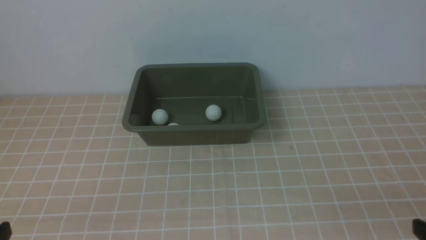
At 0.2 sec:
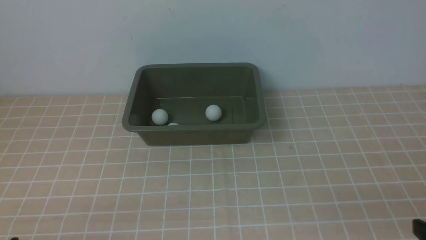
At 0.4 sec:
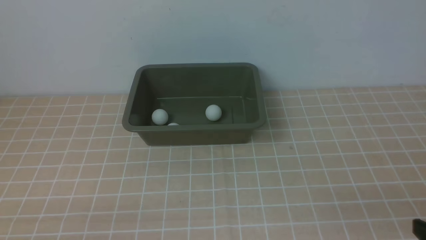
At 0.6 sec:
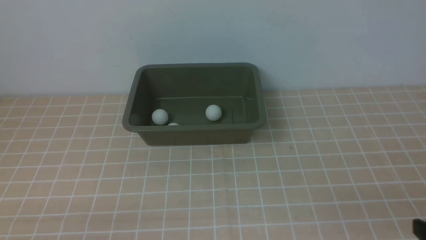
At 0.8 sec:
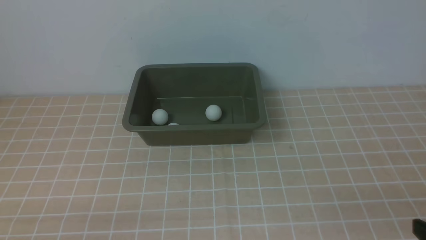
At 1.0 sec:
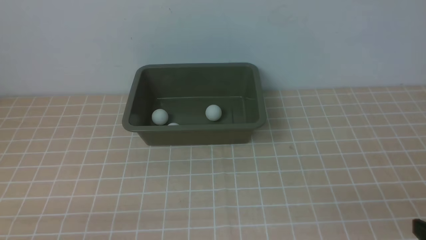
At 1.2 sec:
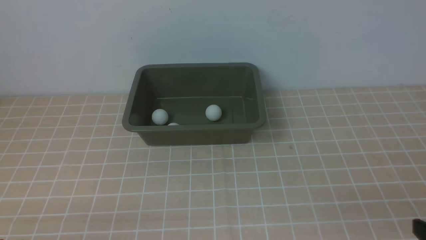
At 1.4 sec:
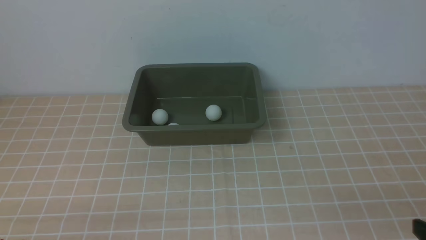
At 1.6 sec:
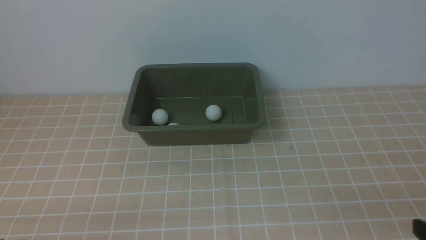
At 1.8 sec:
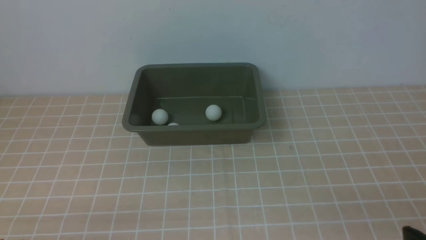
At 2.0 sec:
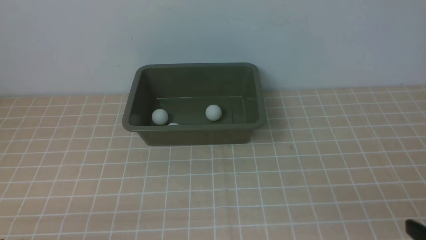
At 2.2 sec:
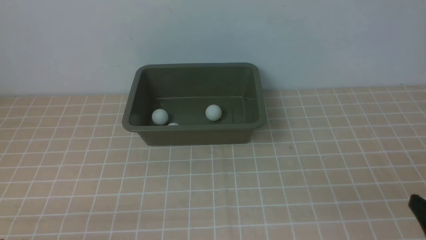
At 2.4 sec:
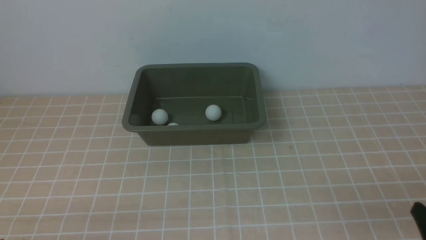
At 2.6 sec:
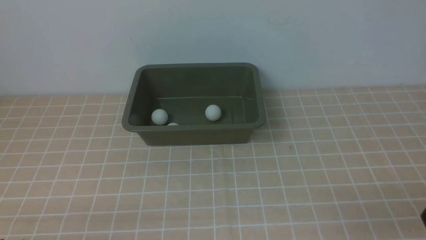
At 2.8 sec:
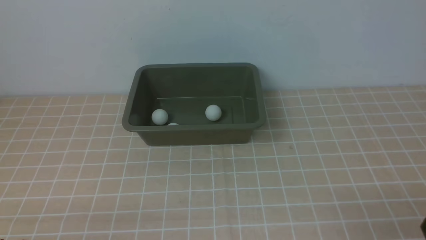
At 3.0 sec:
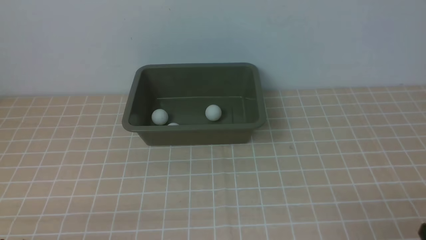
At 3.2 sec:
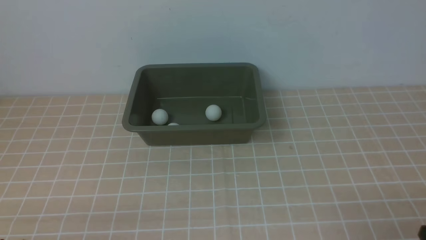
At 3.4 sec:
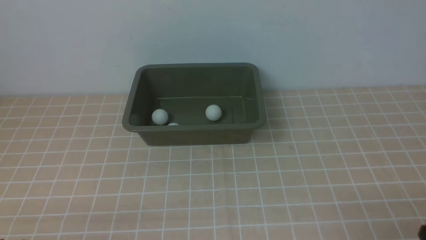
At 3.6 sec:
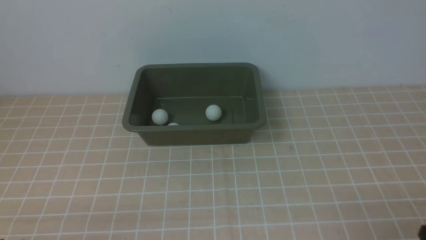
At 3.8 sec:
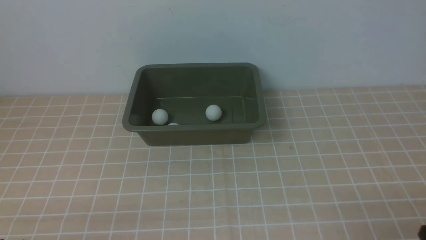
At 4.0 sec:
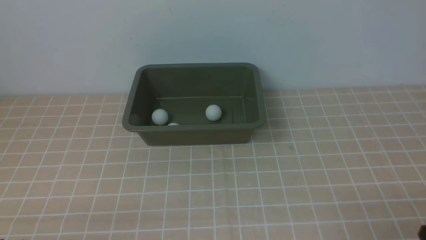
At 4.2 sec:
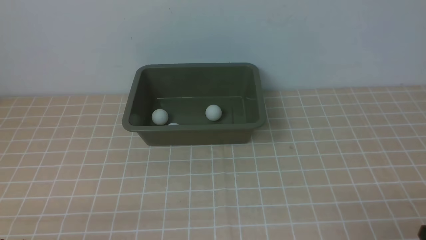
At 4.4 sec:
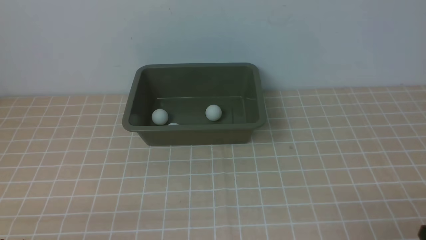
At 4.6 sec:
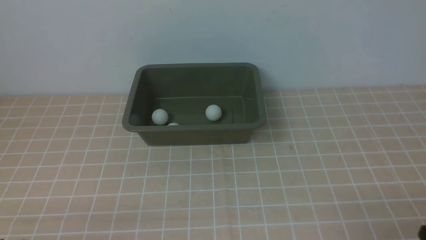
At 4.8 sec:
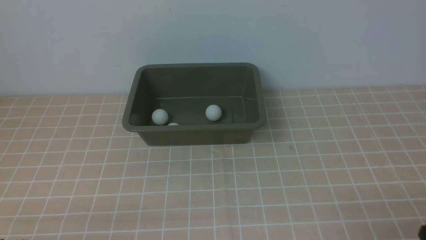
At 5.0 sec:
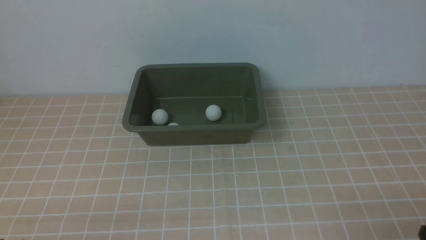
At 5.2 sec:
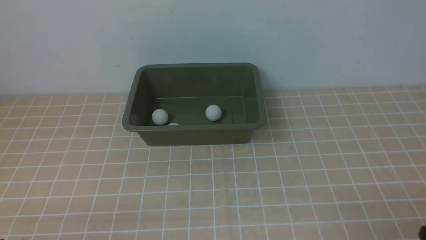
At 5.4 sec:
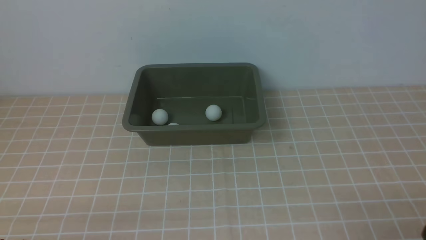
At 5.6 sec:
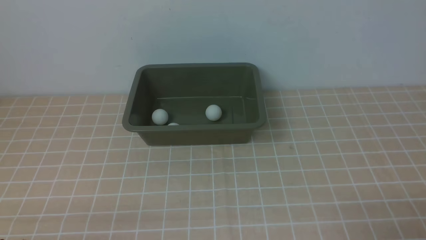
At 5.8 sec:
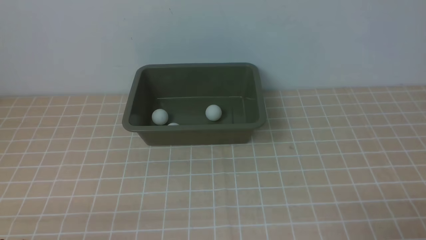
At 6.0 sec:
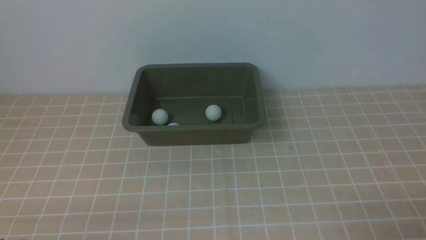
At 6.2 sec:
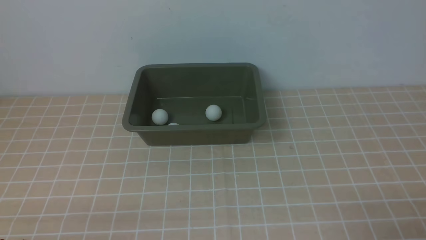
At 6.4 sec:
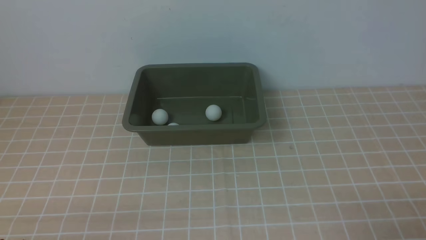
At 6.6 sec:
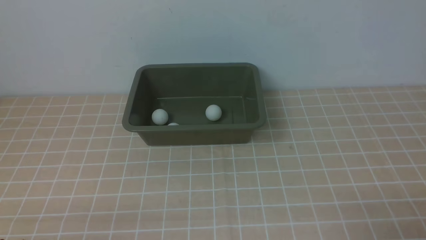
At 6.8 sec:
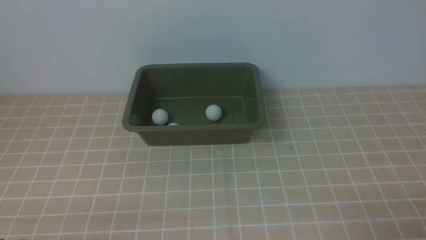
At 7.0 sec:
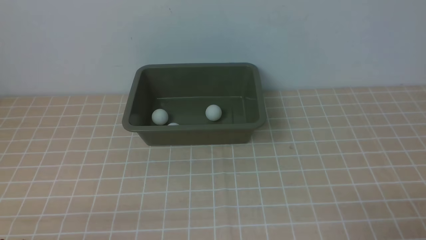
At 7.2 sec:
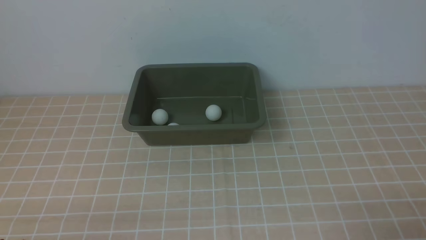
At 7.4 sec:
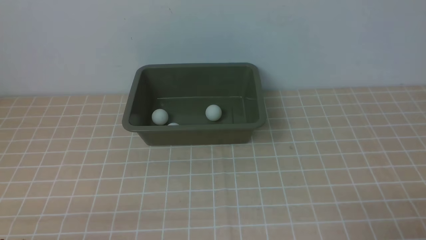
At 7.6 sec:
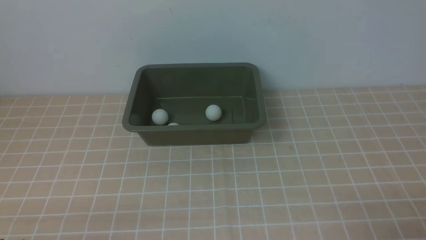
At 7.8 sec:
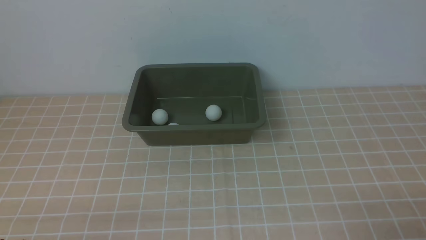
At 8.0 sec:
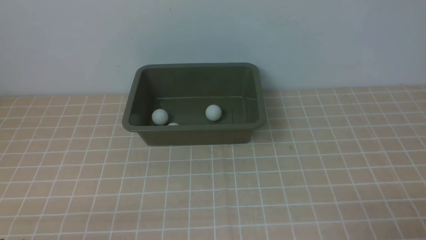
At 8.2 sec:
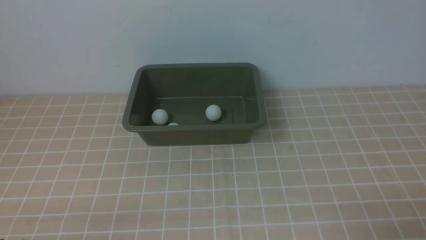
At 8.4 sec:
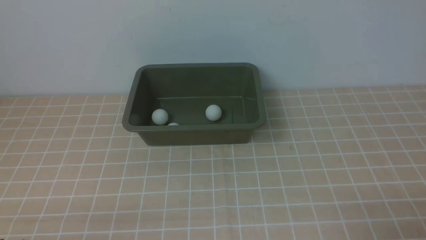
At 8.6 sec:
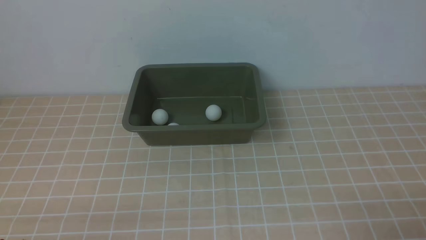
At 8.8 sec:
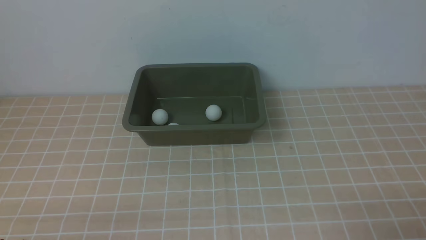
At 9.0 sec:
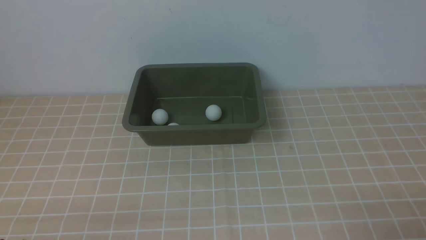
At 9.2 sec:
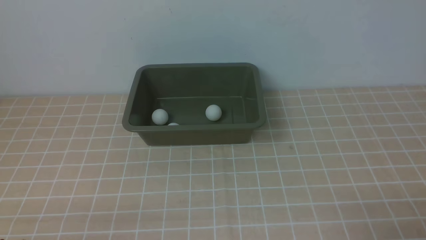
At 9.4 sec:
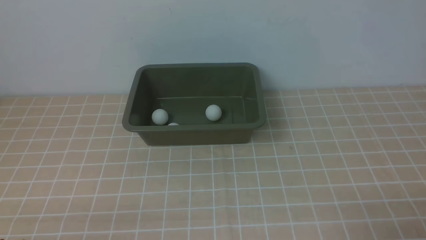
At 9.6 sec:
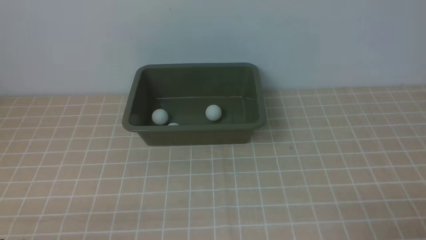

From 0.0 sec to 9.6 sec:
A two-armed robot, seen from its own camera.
From 3.2 sec to 4.8 sec: Neither gripper changes place.
From 6.4 sec to 9.6 sec: The two grippers keep their place.
